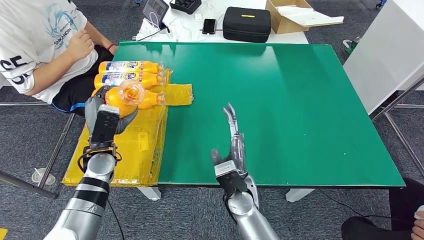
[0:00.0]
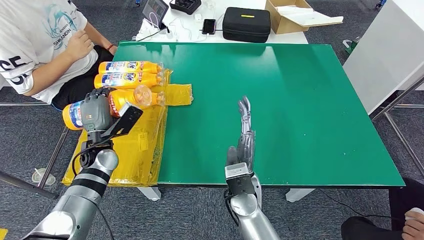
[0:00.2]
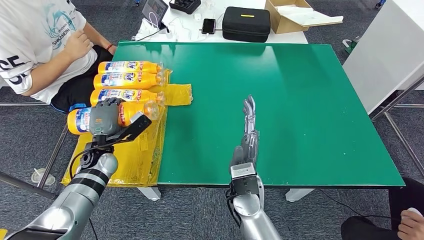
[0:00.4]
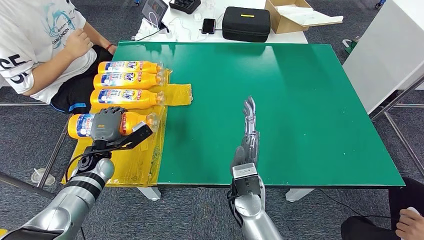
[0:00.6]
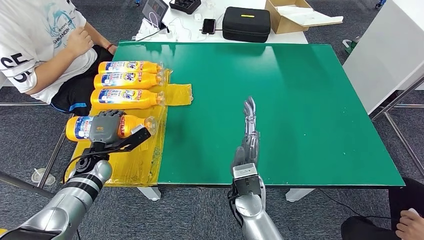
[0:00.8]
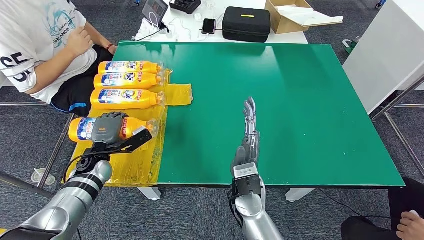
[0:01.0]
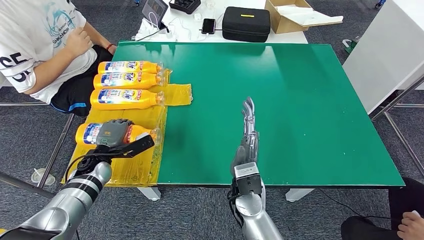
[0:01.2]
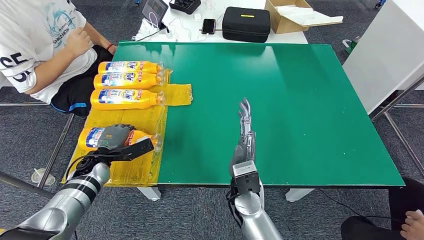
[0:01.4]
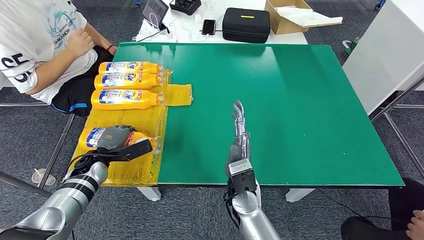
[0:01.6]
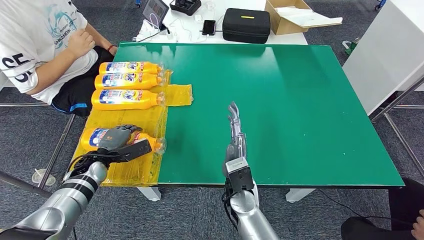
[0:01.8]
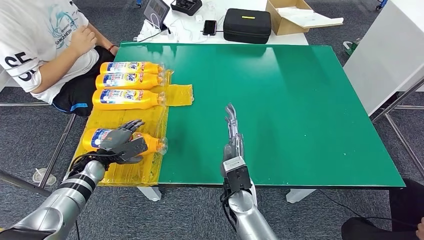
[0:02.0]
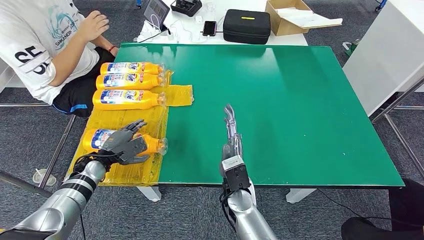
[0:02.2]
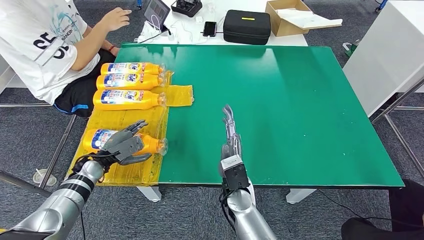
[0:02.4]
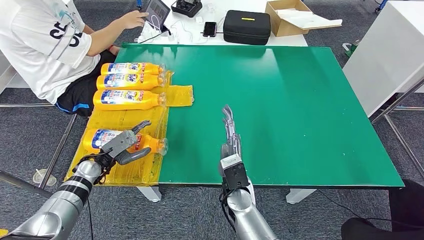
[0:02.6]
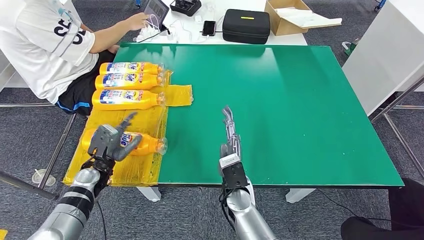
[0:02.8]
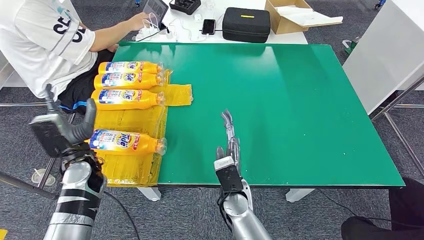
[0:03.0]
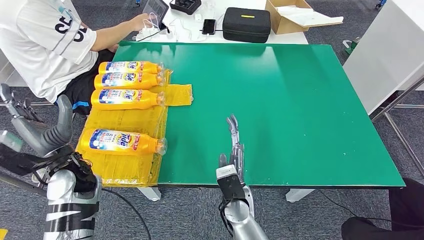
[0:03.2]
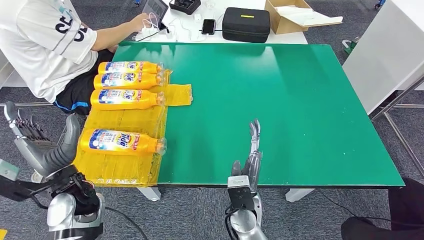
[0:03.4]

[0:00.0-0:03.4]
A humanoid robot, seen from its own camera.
Step, 0:00.0 to 0:03.4: Flip the fast-moving consumer goods bottle to the front side.
0:00.0 to 0:01.6: The left hand heads to the left and downward, covering about 10 cm.
